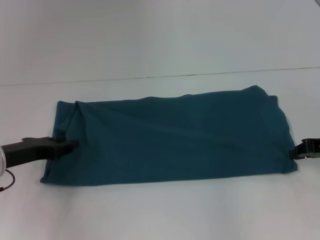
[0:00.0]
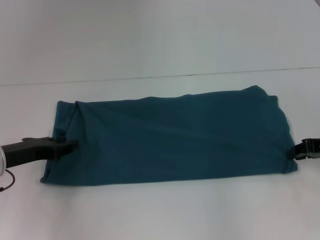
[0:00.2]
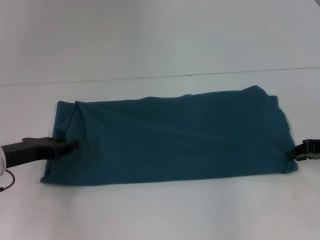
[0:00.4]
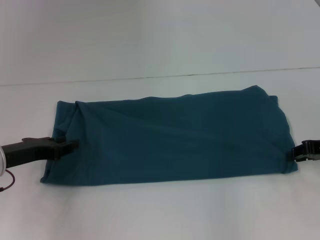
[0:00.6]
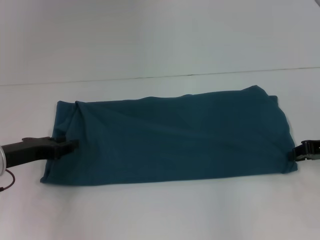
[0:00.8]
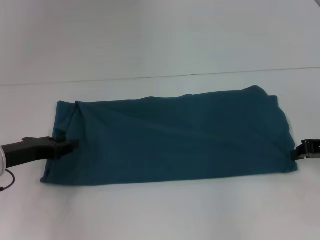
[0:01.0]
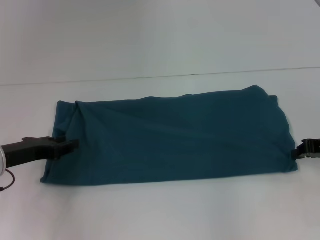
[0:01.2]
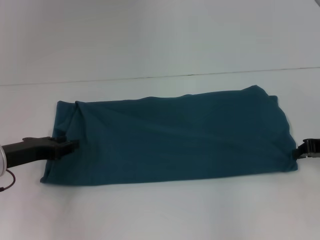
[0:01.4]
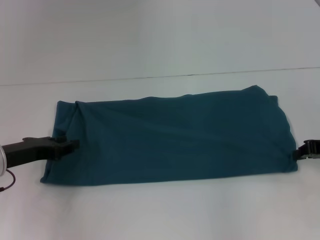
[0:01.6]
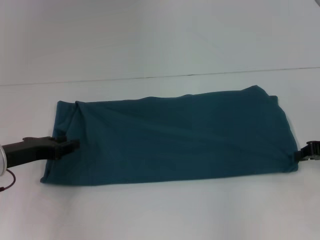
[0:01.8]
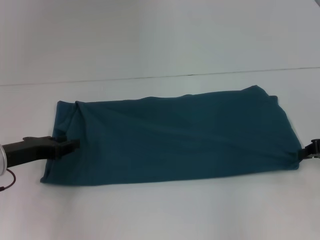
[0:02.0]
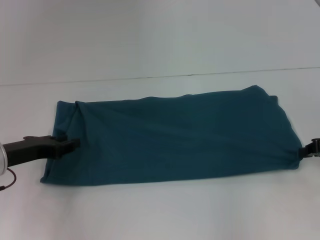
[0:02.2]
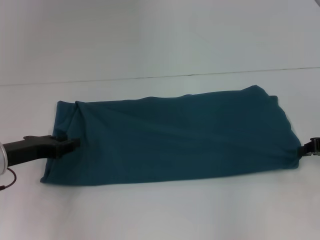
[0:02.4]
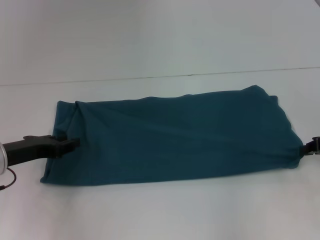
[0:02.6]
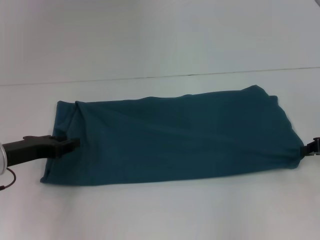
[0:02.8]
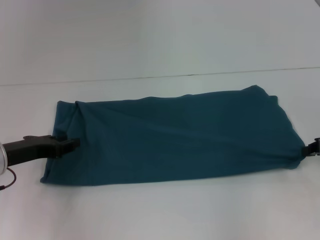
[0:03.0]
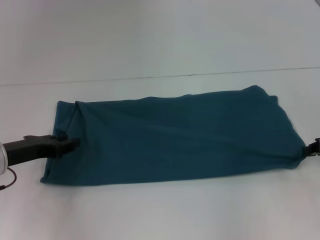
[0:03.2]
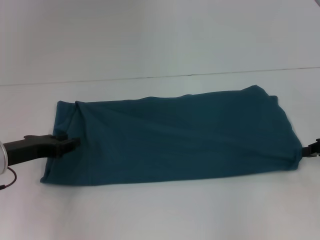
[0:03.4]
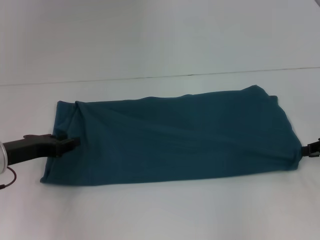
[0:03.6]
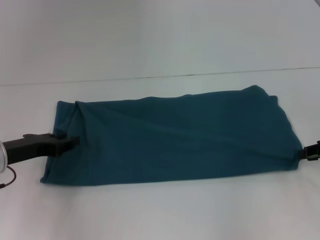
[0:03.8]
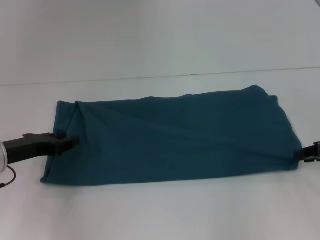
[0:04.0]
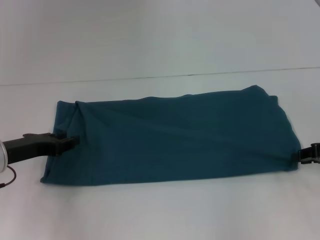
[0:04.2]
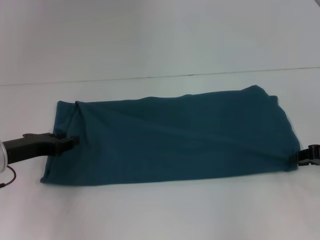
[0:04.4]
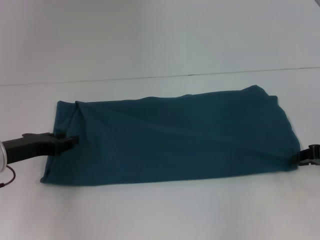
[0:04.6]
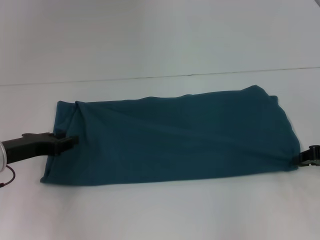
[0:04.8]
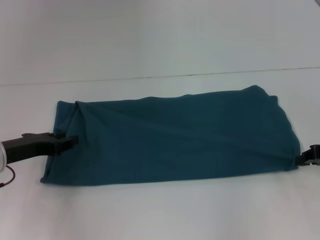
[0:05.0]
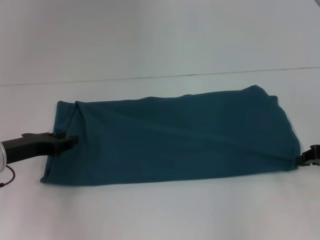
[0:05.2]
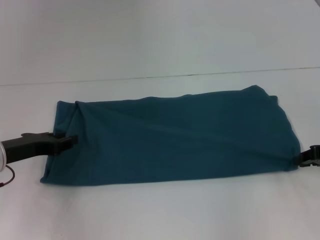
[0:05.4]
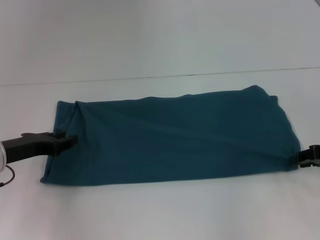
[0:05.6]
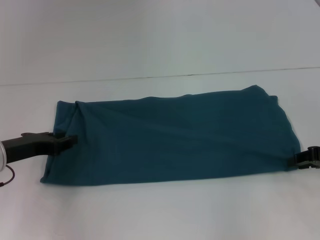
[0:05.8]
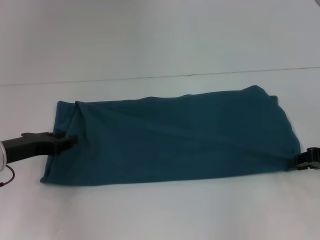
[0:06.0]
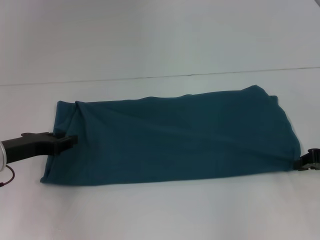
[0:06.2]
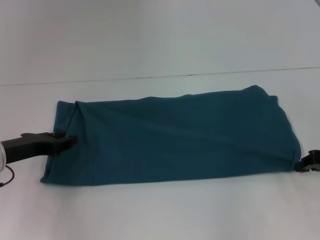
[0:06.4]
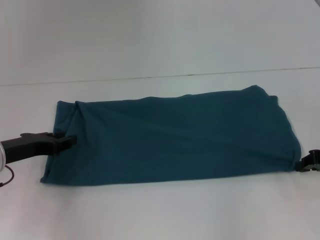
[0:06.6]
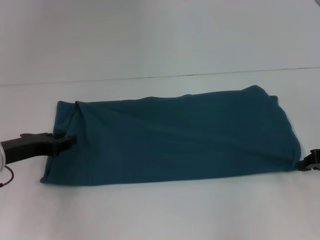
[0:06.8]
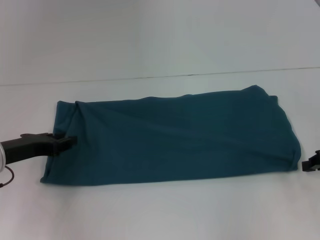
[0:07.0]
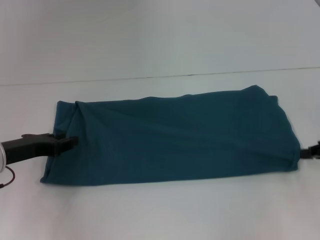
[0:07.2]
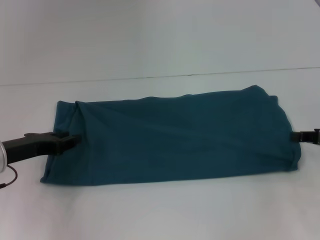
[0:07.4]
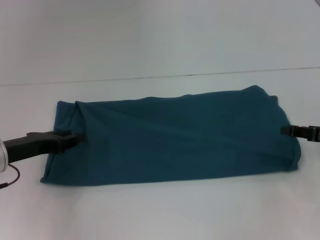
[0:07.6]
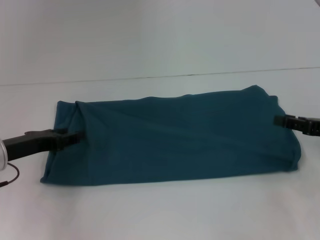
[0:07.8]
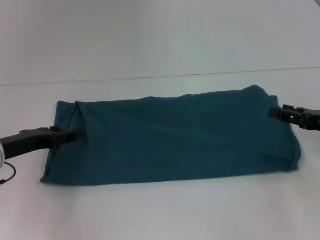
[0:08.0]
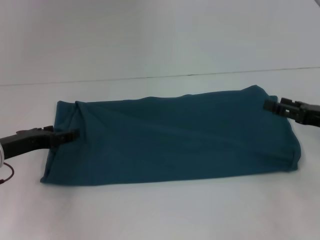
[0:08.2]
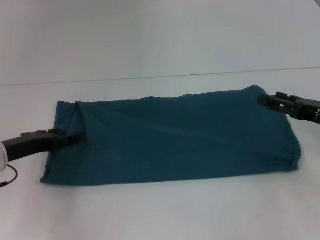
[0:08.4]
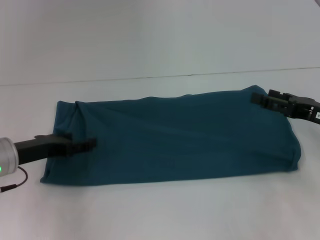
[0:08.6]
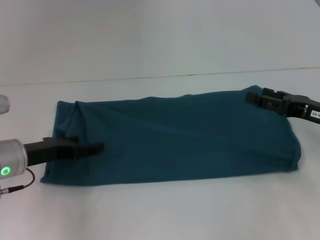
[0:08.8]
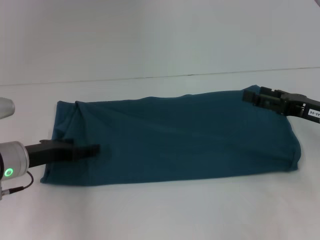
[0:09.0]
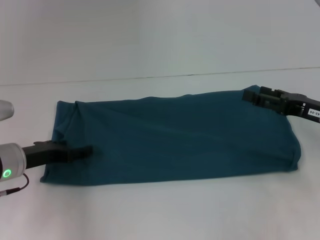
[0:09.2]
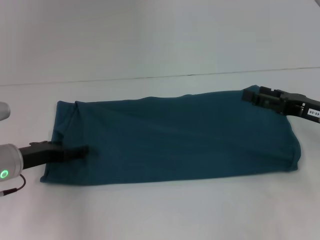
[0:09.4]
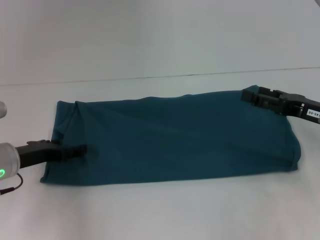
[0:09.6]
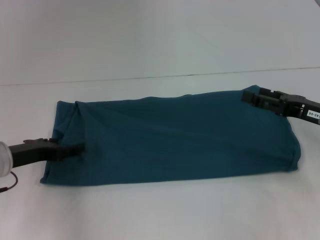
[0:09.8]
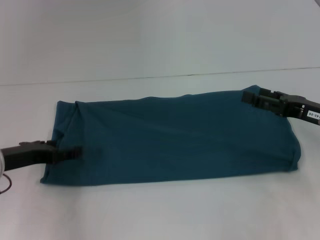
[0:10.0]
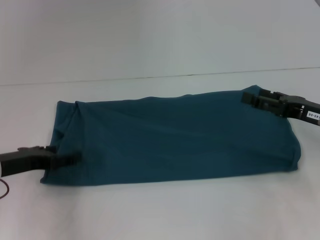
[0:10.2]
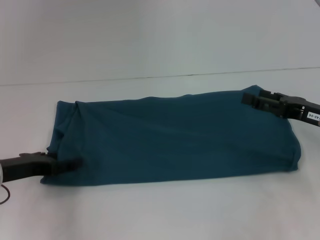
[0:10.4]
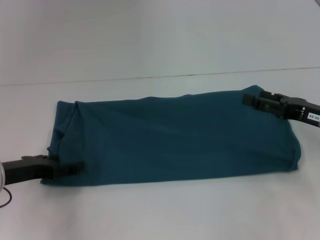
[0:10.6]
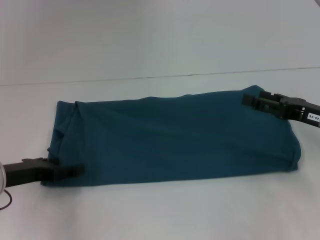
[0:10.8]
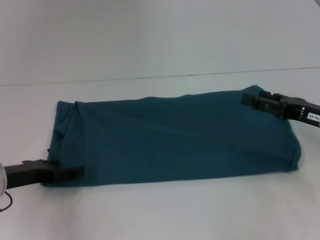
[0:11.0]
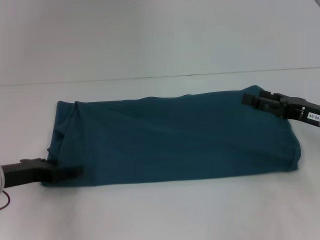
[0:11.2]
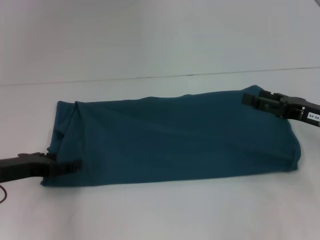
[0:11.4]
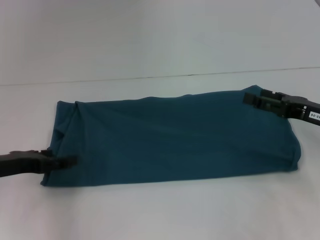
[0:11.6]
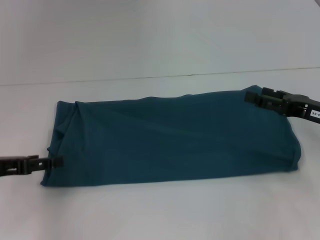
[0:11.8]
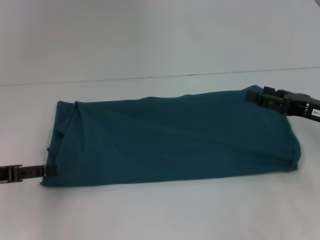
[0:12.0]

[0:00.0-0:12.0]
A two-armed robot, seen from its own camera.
0:00.0 to 0:01.6: Both grippers stay put.
0:01.6 to 0:03.0: There are only small adjustments of the grippers.
0:03.0 to 0:04.4: Both grippers stay about where they are.
0:04.4 to 0:06.0: Neither gripper changes place.
0:07.6 to 0:09.0: The left gripper opens up. The right gripper changes place by approximately 5 cm, and opens.
0:09.0 to 0:10.4: The grippers make only small movements.
0:10.4 to 0:12.0: The left gripper changes place by some 5 cm.

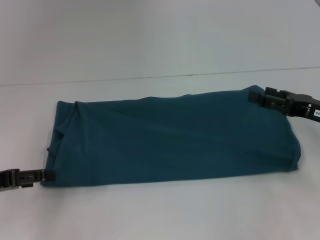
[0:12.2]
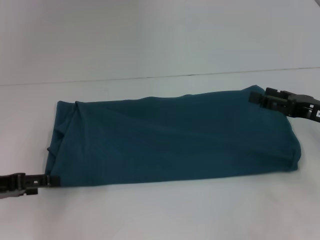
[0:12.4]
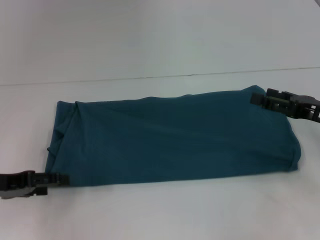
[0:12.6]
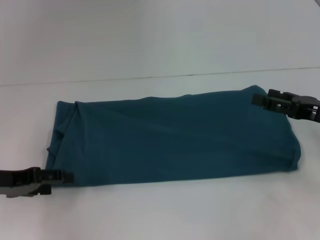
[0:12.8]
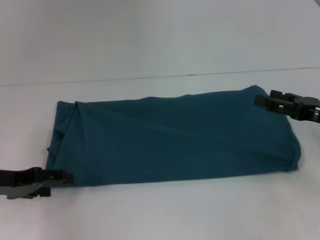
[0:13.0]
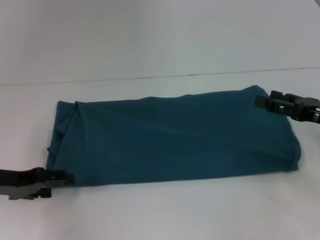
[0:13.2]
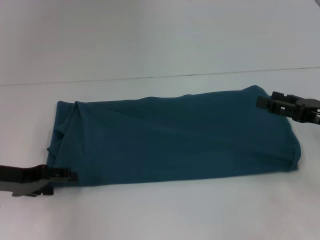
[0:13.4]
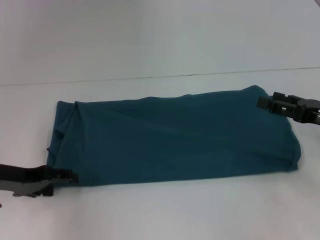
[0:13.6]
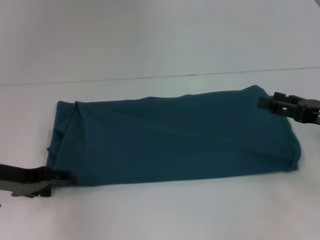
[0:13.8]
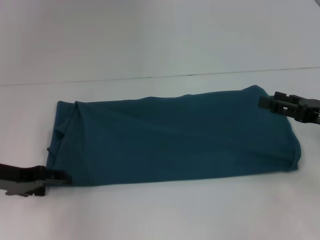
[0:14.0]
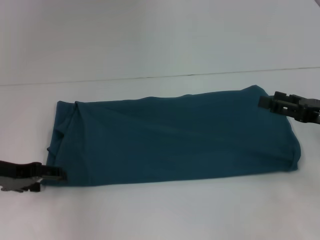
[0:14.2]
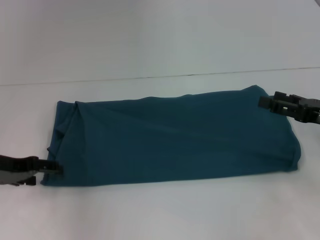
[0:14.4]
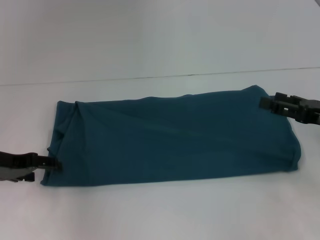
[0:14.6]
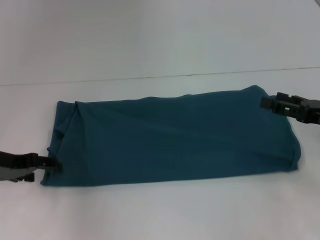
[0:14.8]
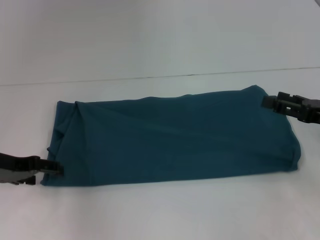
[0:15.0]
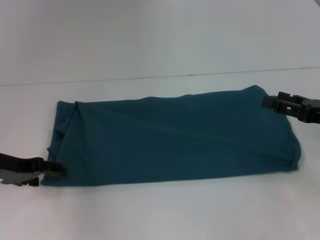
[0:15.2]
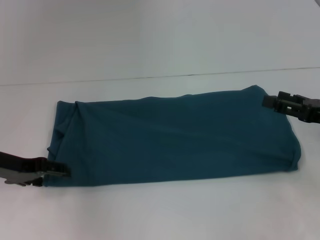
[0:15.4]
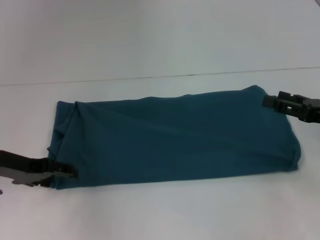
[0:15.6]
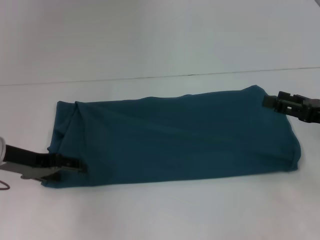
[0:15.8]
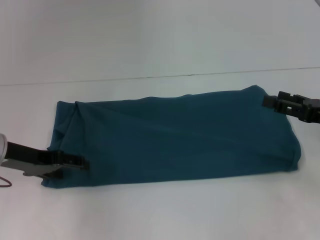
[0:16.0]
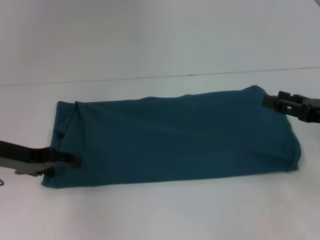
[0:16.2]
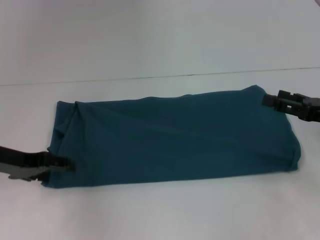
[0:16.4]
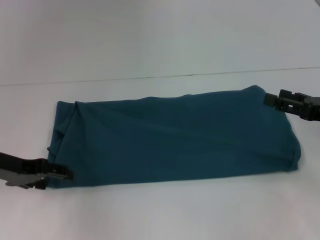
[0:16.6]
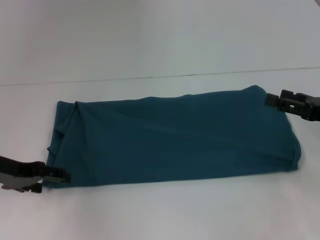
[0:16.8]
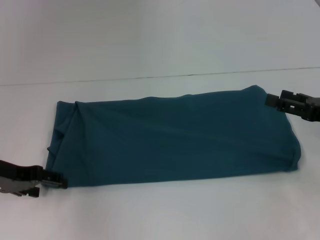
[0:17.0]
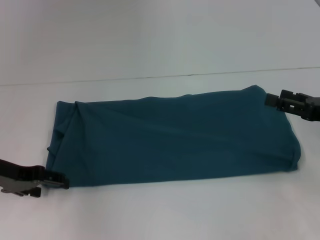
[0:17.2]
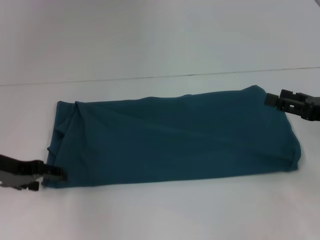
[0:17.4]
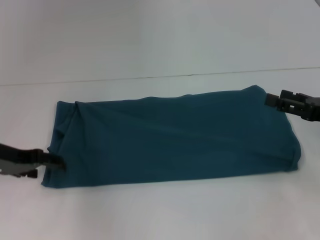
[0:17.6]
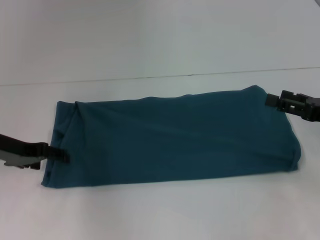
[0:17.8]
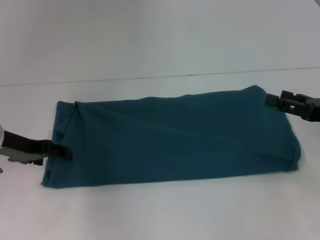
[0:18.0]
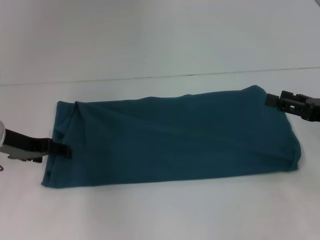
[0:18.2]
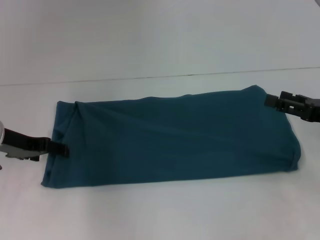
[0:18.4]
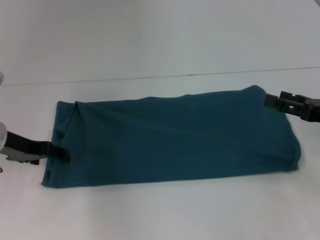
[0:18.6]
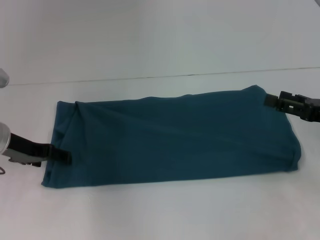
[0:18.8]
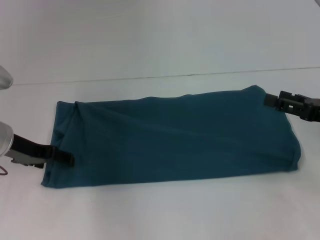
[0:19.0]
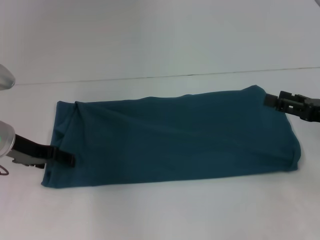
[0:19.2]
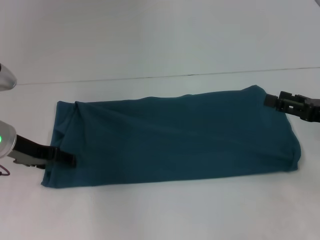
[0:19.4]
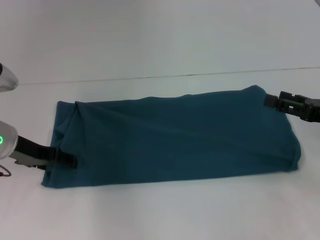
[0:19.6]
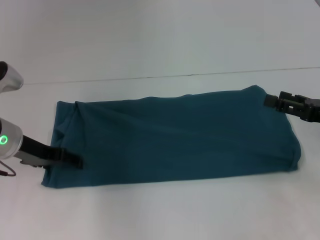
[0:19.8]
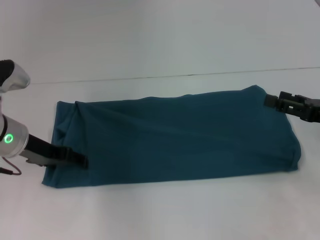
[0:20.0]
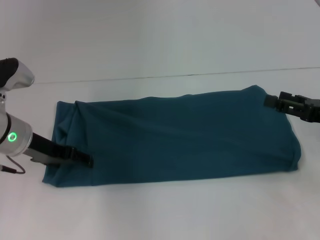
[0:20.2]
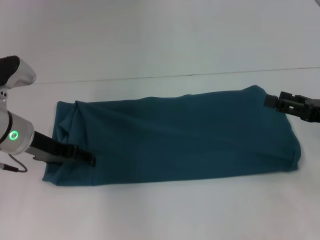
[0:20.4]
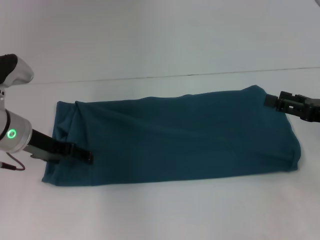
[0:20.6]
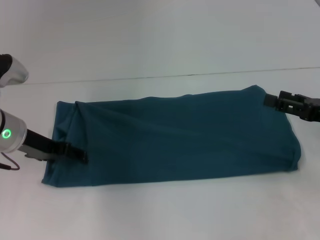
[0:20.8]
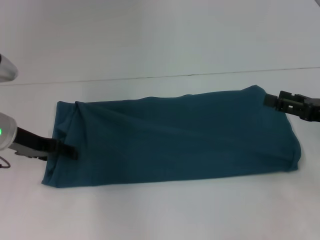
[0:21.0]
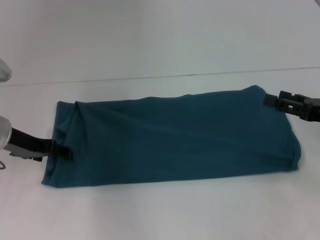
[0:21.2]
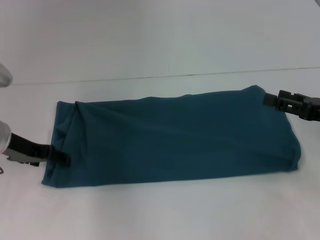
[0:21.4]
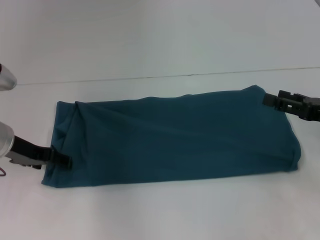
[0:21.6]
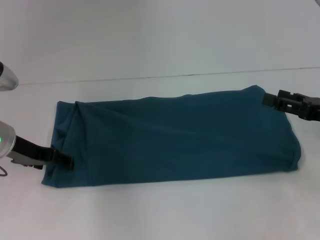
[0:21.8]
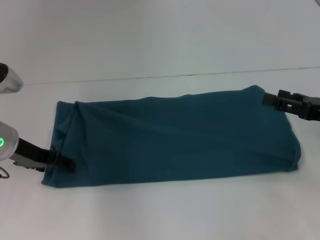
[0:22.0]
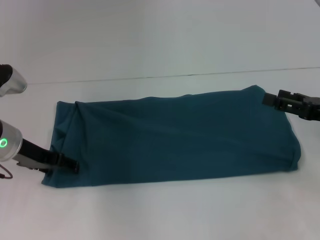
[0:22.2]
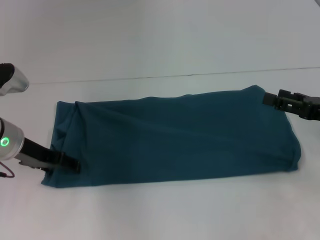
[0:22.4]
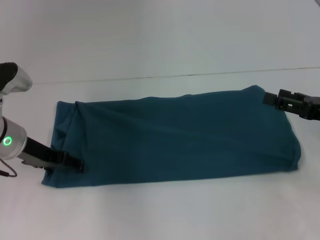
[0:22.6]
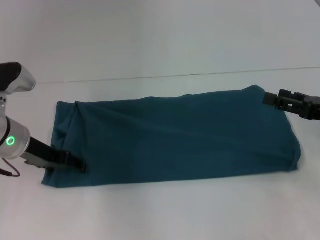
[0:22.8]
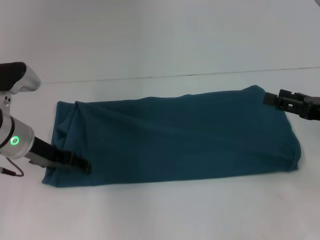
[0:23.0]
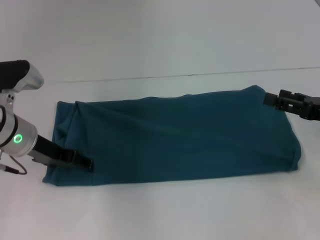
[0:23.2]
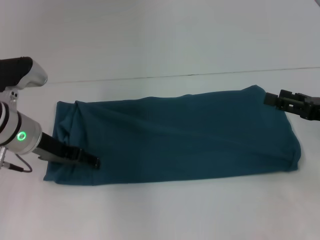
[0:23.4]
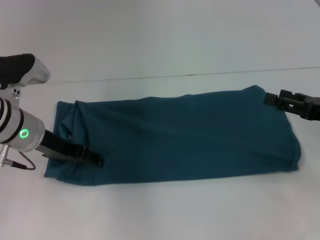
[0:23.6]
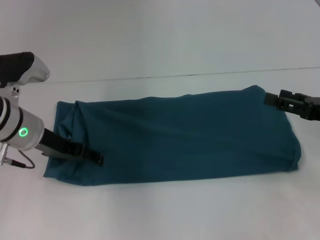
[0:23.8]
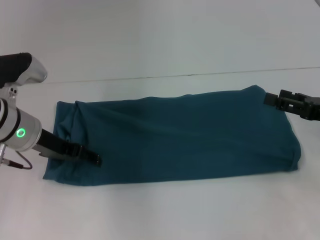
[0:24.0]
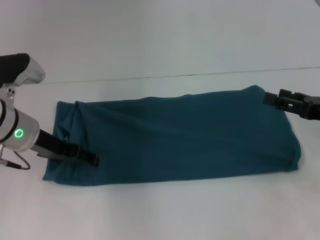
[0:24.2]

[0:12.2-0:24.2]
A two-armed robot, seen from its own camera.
0:12.2 to 0:13.8: The left gripper shifts by about 5 cm.
0:13.8 to 0:18.2: The grippers stay close to where they were, moving slightly.
0:18.2 to 0:24.2: The grippers move only a little.
